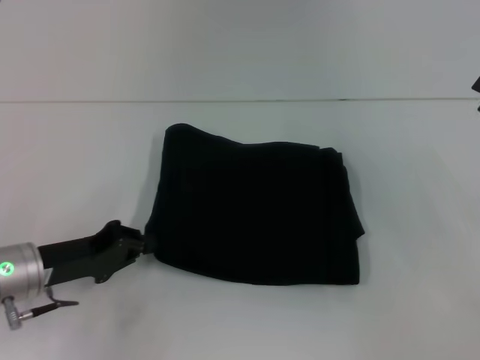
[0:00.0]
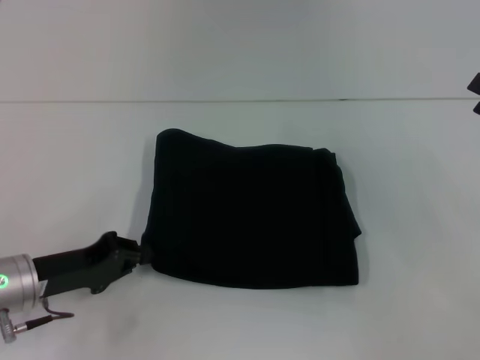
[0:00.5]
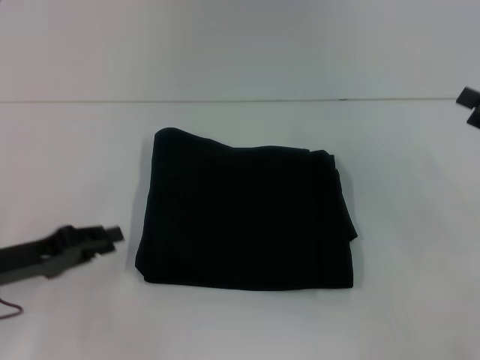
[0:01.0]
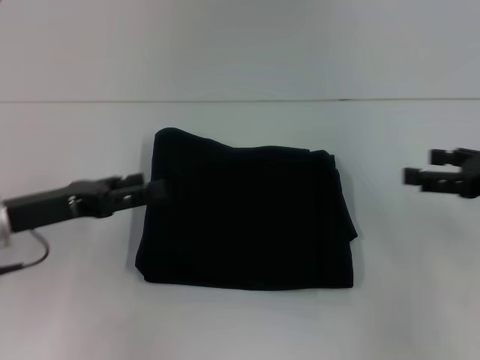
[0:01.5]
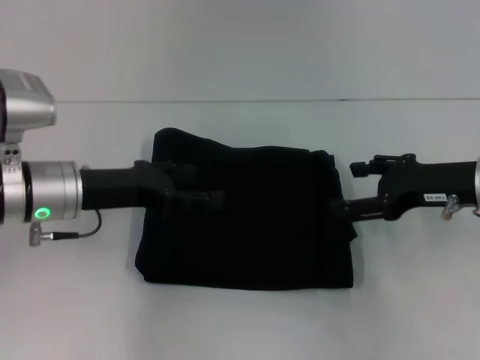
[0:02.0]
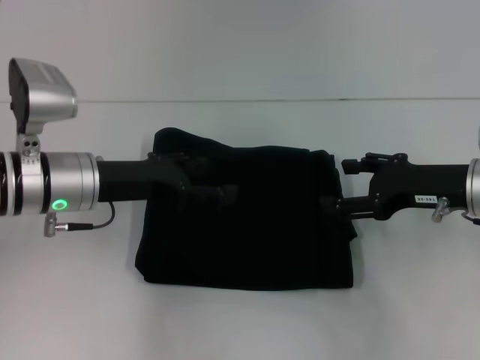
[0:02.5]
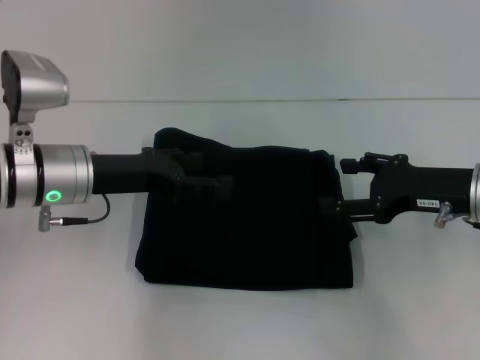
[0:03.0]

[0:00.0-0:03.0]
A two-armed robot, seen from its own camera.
0:00.0 to 0:01.5: The left gripper travels upward by some 5 cm, and opens up.
0:01.5 to 0:03.0: The left gripper heads to the right and forward, covering roughly 10 cm. Meanwhile the right gripper goes about 10 cm to the left.
